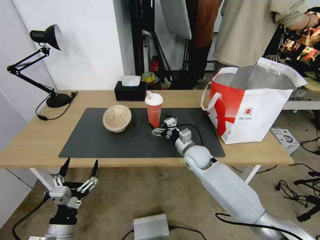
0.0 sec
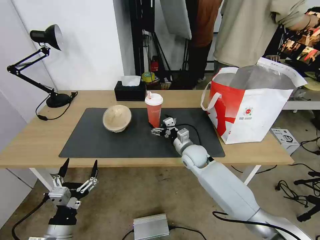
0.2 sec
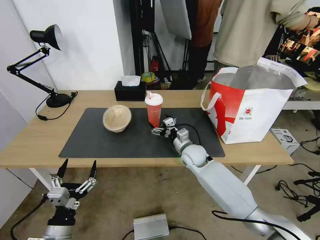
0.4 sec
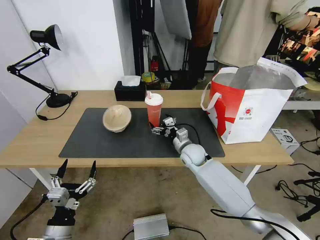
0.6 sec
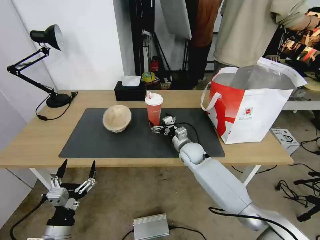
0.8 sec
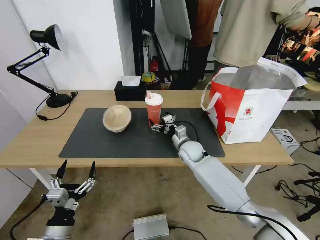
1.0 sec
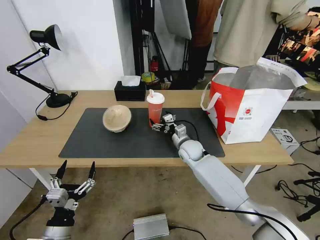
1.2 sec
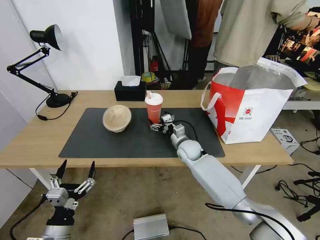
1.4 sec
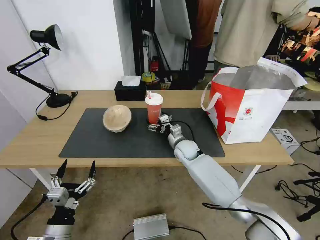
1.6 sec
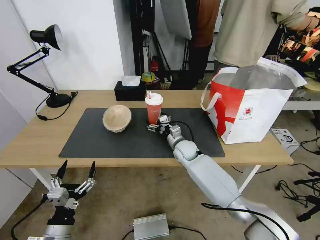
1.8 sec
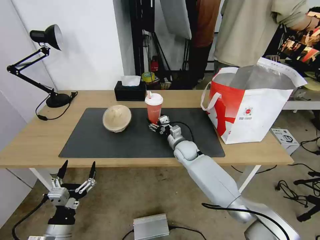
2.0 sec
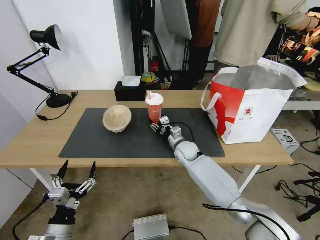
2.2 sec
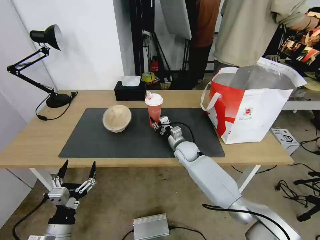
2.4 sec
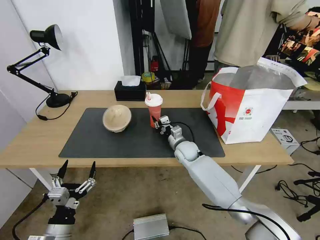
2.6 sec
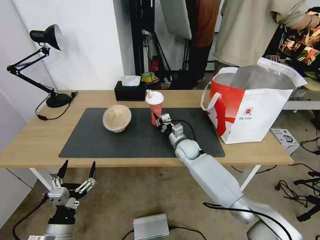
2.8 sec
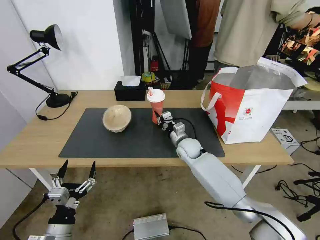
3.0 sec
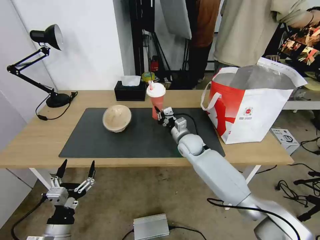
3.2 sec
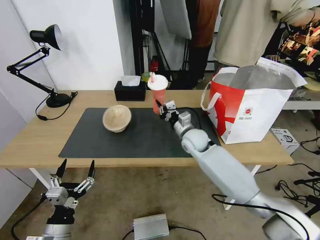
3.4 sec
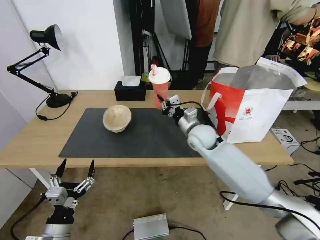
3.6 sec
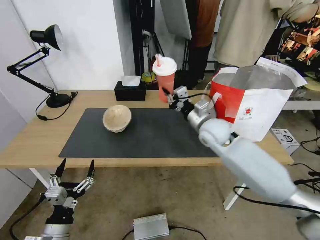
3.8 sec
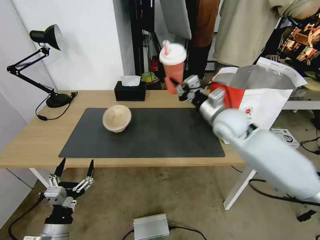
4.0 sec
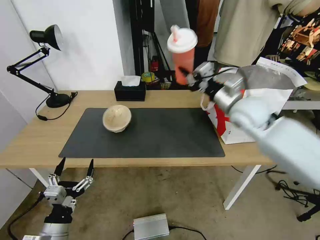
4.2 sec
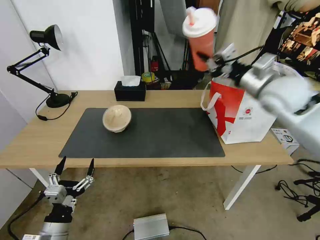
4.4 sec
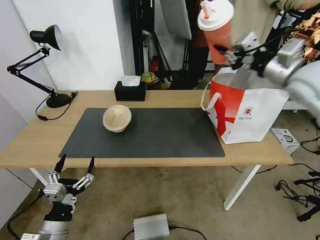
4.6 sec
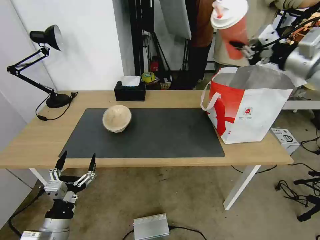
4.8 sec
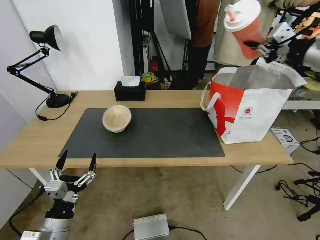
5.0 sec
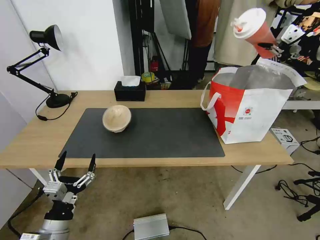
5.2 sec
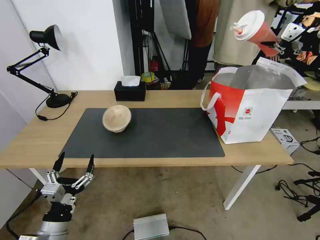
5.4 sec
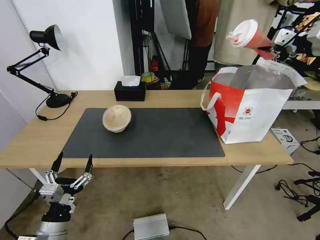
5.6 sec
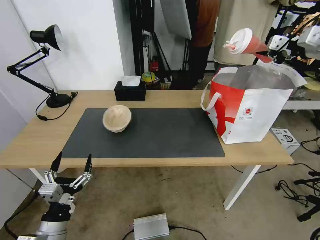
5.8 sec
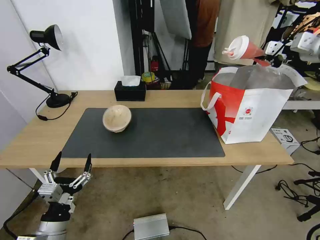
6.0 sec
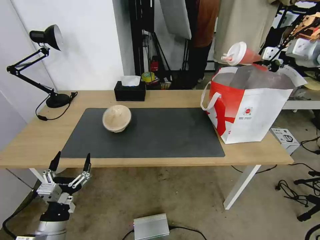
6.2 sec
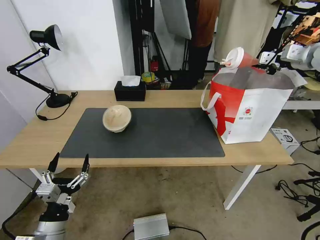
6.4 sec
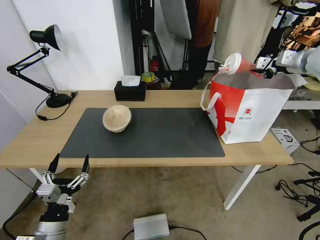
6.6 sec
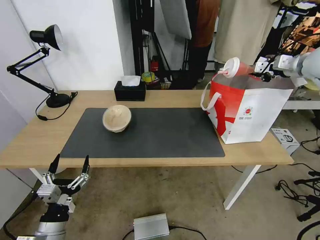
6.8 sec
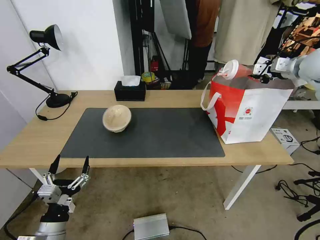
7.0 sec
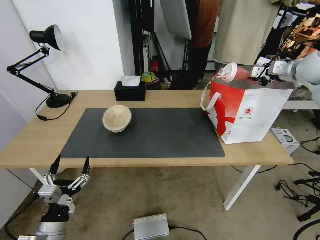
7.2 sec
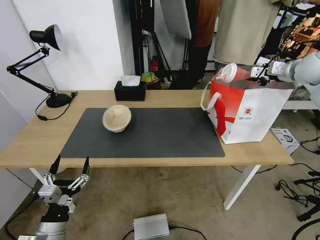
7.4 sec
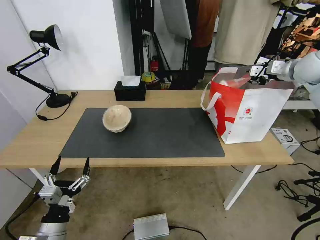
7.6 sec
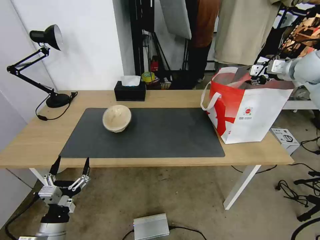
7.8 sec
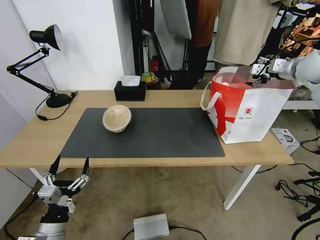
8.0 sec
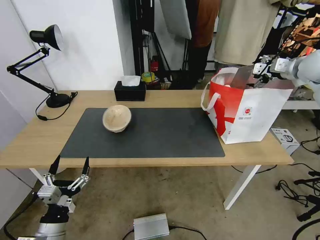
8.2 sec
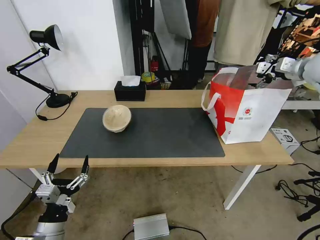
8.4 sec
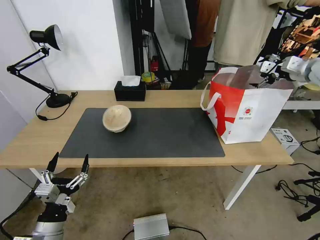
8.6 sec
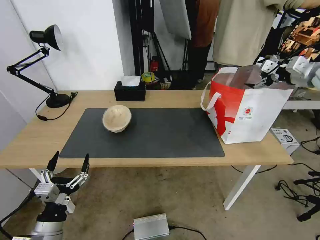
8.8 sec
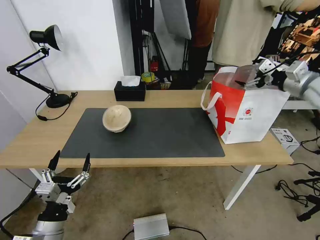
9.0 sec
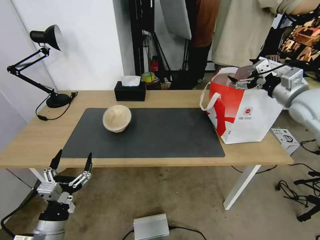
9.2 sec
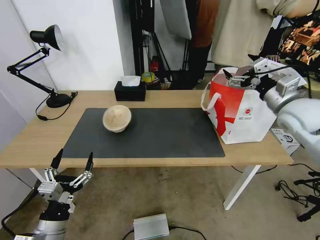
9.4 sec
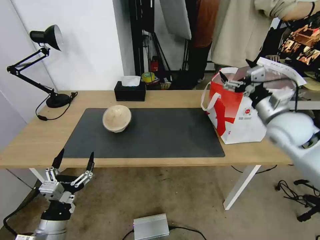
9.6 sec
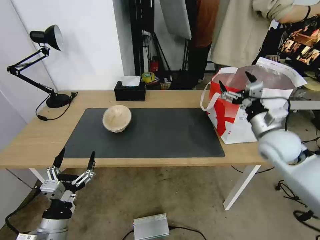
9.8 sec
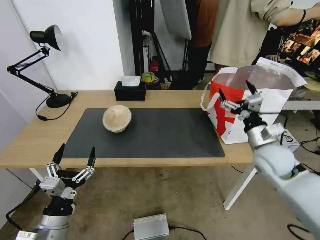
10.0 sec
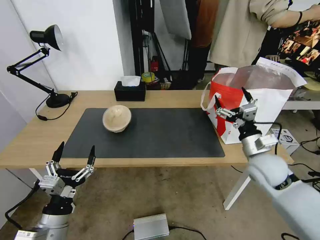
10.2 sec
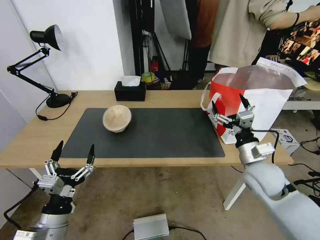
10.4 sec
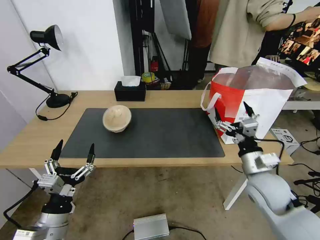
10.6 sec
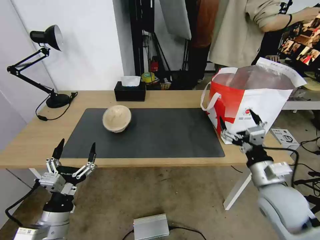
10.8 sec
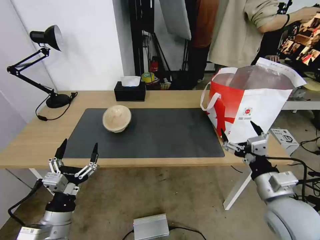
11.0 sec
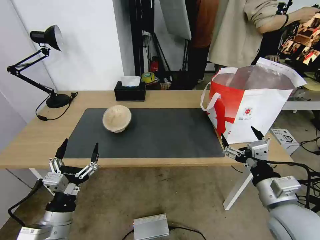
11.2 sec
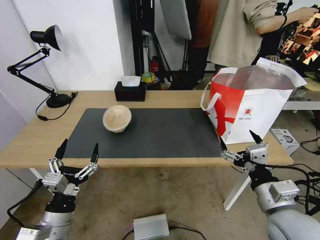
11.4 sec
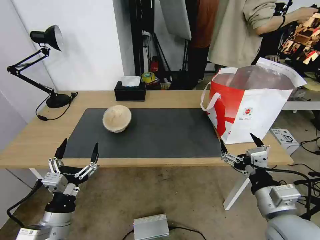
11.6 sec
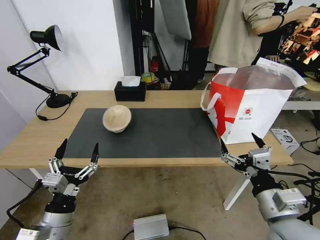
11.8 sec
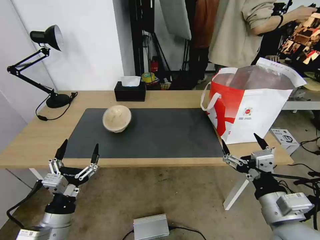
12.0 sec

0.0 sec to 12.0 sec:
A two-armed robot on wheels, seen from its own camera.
Task of the whole recording: Pick up the trash from the table and place it into the takeout bag.
0.0 sec to 1.6 sec: The right gripper moves forward, approximately 5 cm.
1.6 sec to 3.0 sec: The right gripper closes its fingers.
3.0 sec to 4.4 sec: The right gripper shifts roughly 35 cm upward and to the right.
4.4 sec to 6.0 sec: The right gripper heads to the right, upward and forward, covering some 20 cm.
6.0 sec to 7.6 sec: The right gripper shifts about 10 cm downward and forward, and opens.
7.6 sec to 9.0 sec: The right gripper travels backward by approximately 10 cm, and opens its fingers.
9.0 sec to 10.4 sec: The right gripper goes about 30 cm downward, to the left and backward.
10.4 sec to 12.0 sec: The right gripper moves backward, about 15 cm.

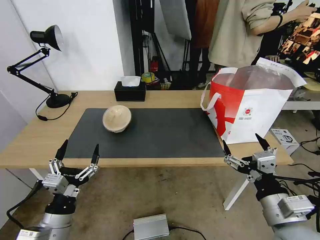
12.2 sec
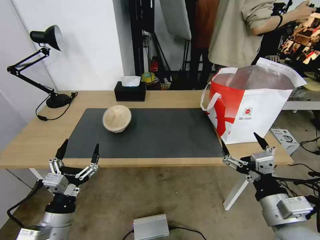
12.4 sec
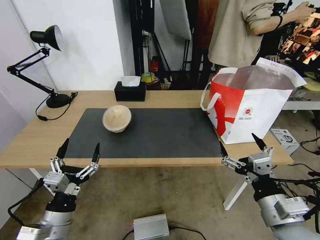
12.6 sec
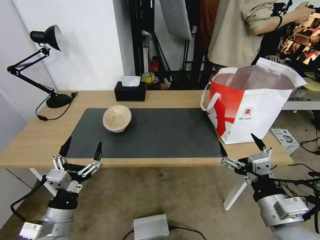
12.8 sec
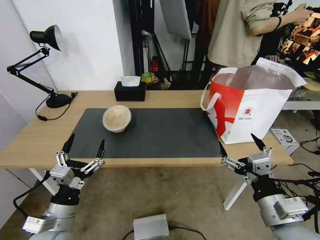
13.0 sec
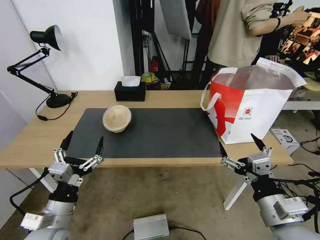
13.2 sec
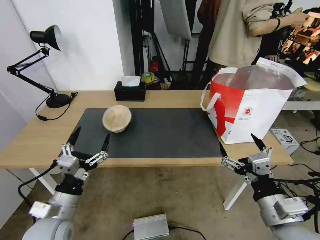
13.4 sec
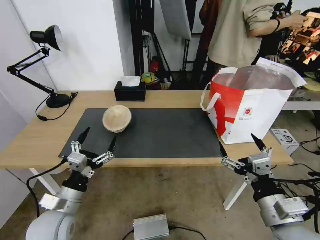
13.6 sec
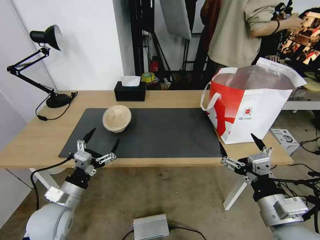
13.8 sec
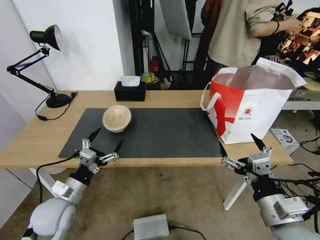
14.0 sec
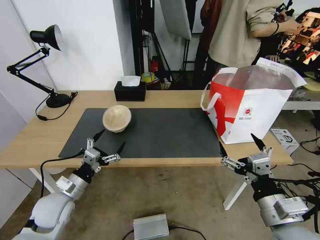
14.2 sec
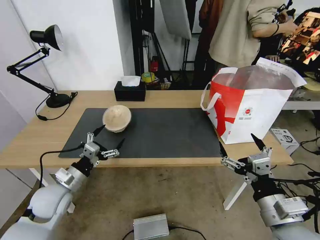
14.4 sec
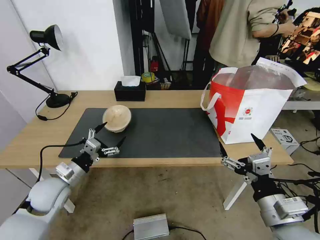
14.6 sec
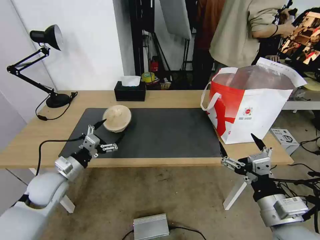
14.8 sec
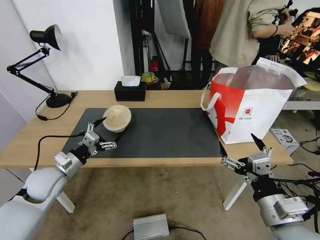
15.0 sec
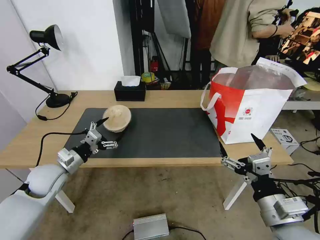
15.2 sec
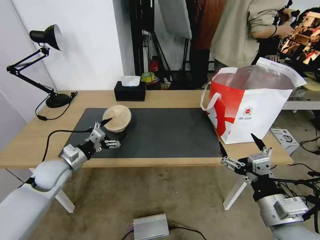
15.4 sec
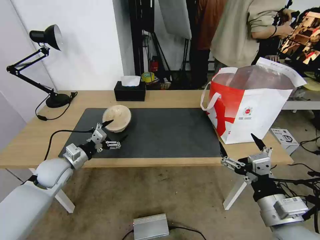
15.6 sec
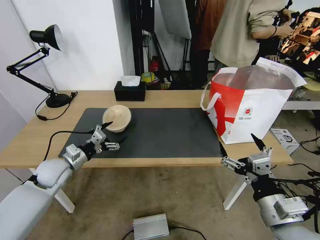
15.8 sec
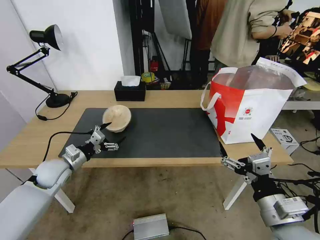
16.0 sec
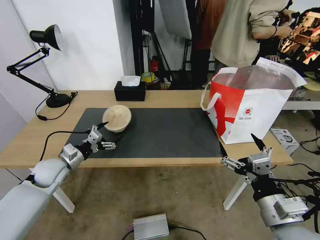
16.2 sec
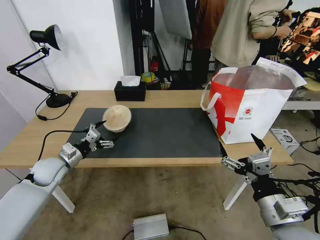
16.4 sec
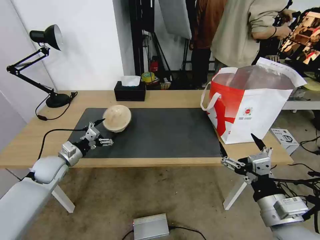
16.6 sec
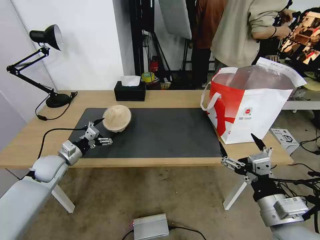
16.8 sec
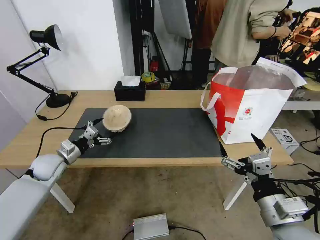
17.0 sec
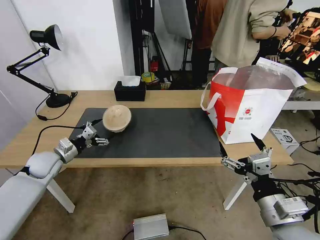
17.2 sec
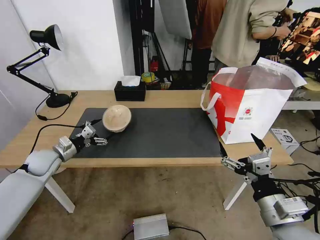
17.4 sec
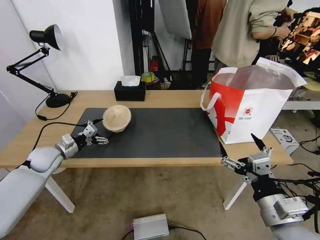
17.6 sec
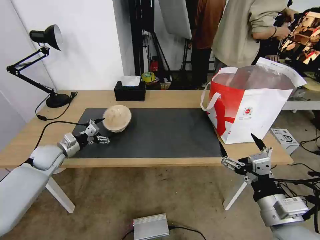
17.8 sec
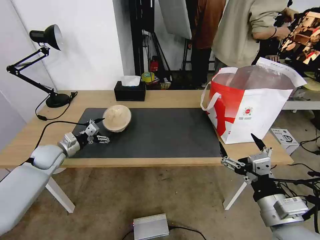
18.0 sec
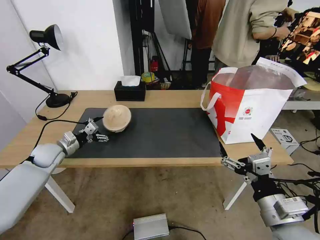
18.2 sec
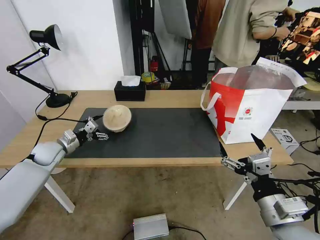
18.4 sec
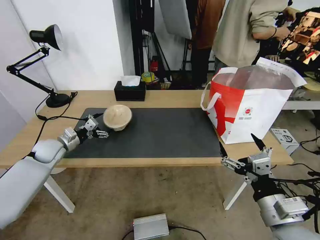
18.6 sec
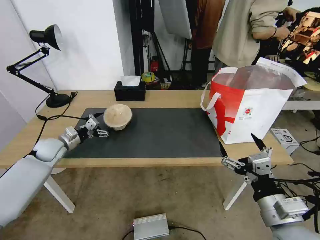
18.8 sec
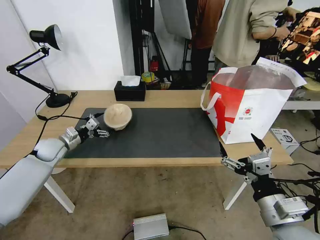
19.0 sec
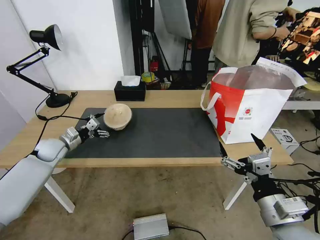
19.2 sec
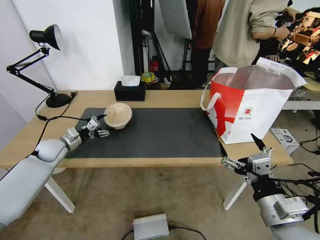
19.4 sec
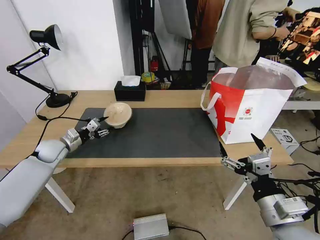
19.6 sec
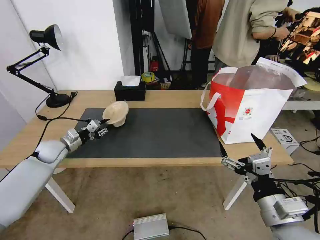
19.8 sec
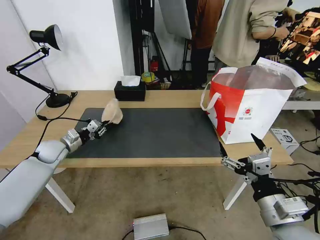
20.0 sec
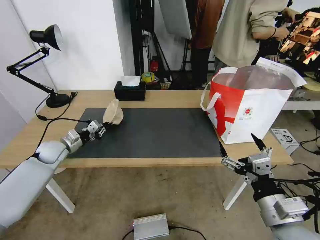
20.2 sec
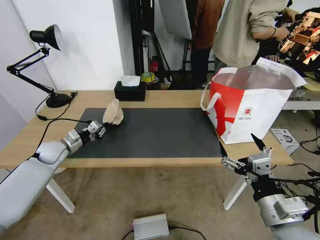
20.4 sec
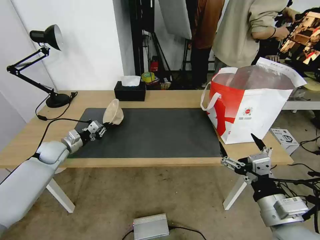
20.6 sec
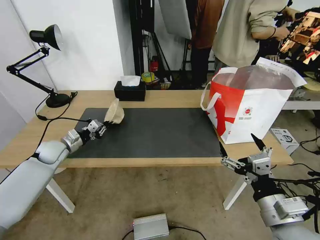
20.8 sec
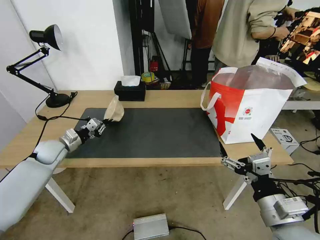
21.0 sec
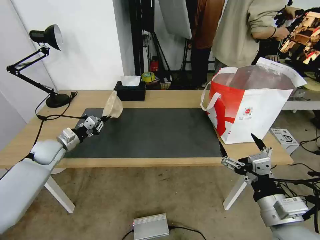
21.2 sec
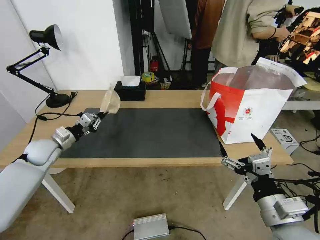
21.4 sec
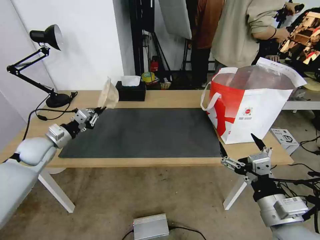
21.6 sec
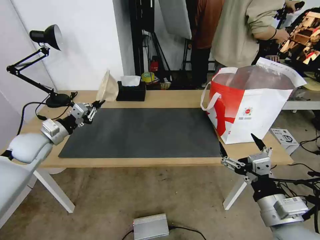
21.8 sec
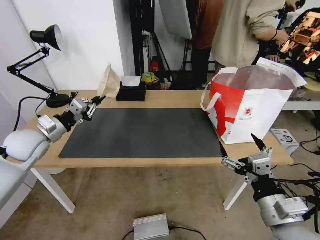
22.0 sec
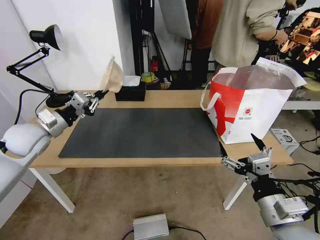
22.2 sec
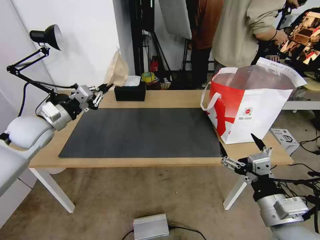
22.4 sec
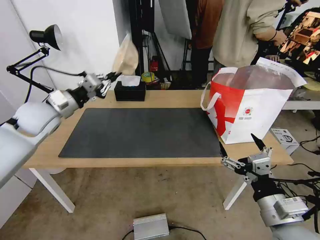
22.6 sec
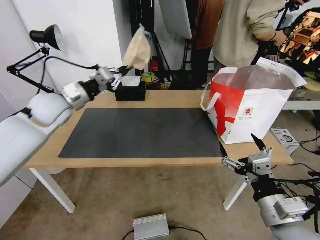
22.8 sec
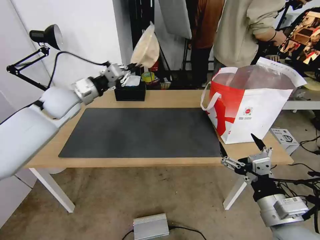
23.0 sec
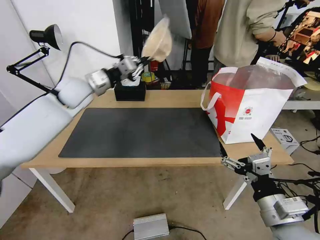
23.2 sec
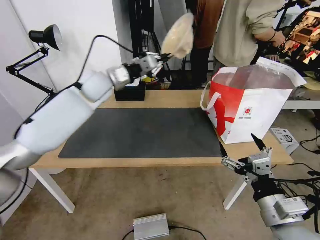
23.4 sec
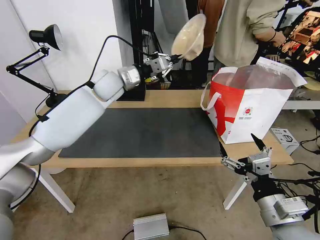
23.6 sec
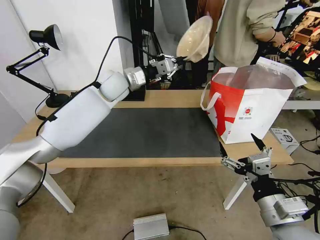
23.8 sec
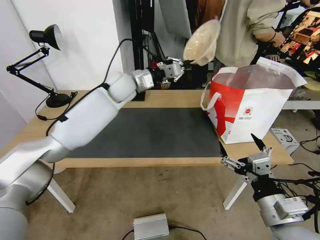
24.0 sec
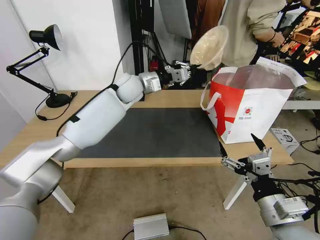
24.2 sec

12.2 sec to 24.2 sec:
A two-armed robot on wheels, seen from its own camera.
Task of the whole recording: Pick up the trash from the table and place it into the takeout bag.
12.2 sec to 13.8 sec: The left gripper goes some 10 cm forward.
13.8 sec to 15.2 sec: The left gripper shifts approximately 15 cm forward and to the left.
15.2 sec to 16.6 sec: The left gripper ends up roughly 5 cm from where it was.
16.6 sec to 18.2 sec: The left gripper is displaced forward by about 5 cm.
18.2 sec to 19.8 sec: The left gripper closes.
19.8 sec to 21.2 sec: The left gripper closes.
21.2 sec to 22.6 sec: The left gripper heads upward, covering approximately 15 cm.
22.6 sec to 24.2 sec: The left gripper heads to the right and forward, covering roughly 30 cm.
